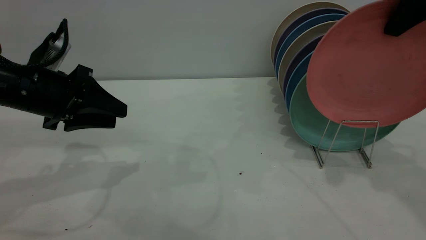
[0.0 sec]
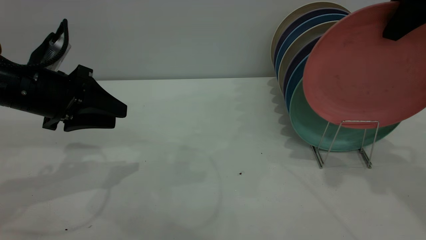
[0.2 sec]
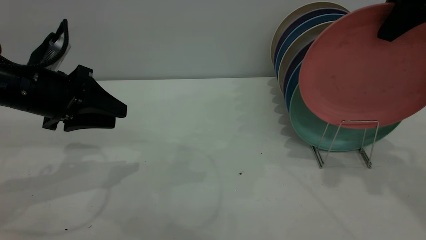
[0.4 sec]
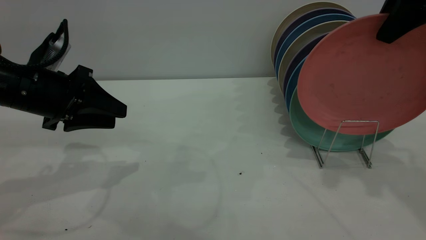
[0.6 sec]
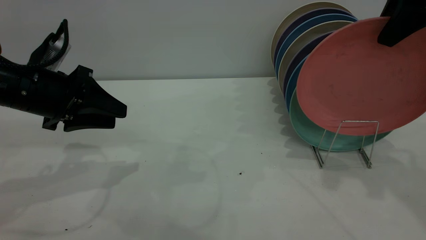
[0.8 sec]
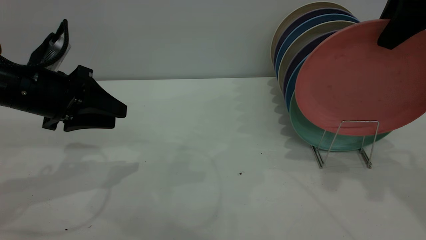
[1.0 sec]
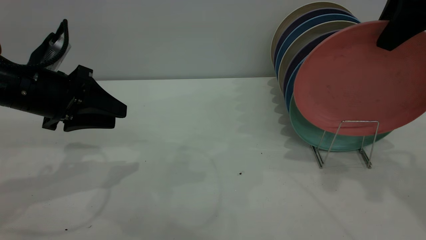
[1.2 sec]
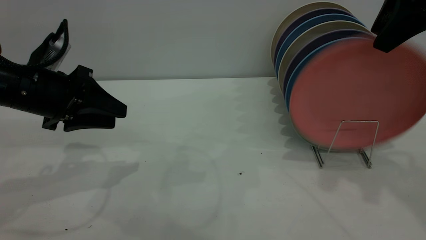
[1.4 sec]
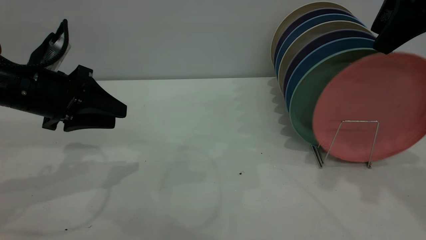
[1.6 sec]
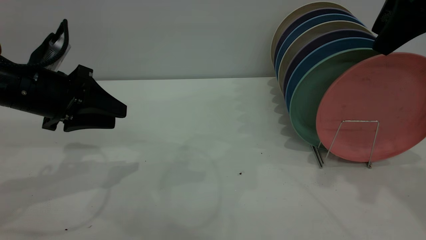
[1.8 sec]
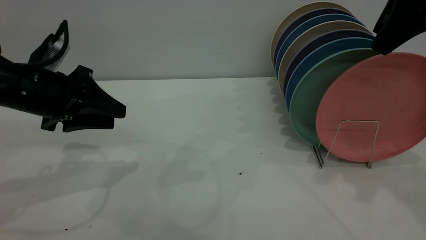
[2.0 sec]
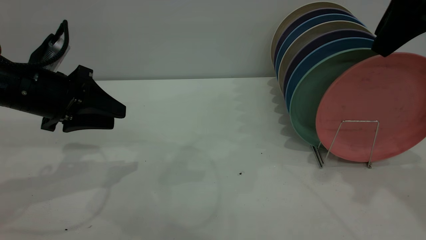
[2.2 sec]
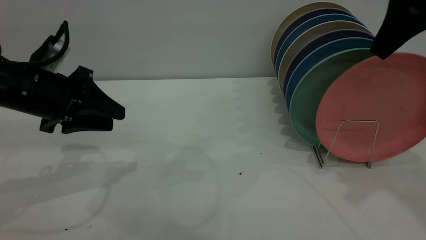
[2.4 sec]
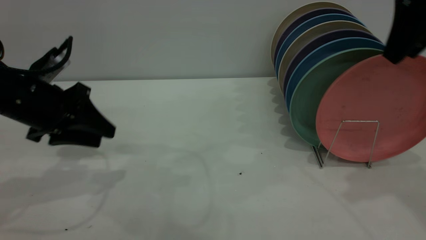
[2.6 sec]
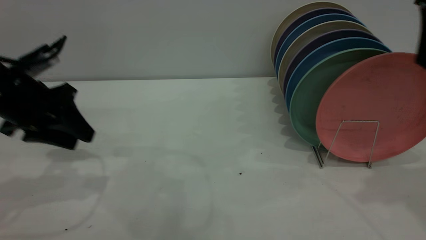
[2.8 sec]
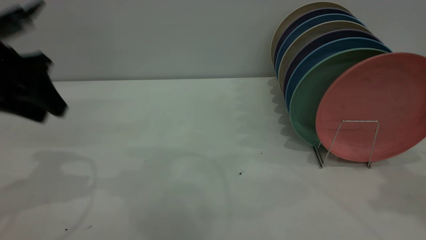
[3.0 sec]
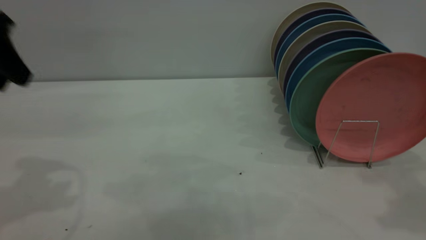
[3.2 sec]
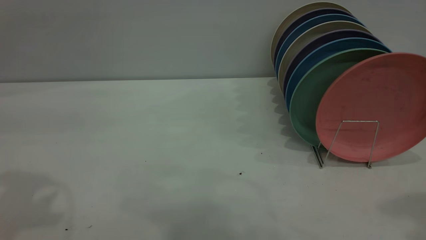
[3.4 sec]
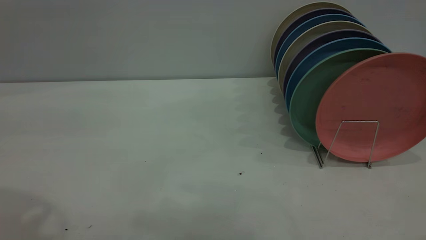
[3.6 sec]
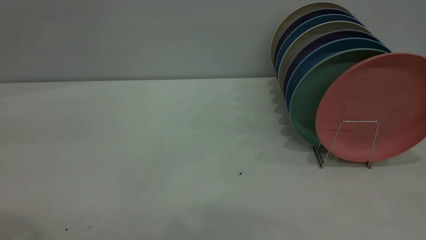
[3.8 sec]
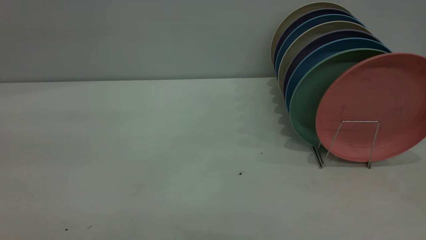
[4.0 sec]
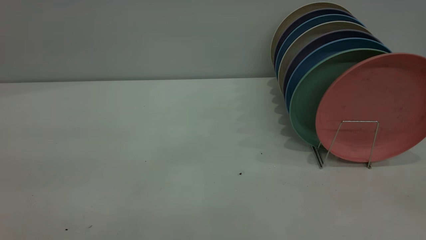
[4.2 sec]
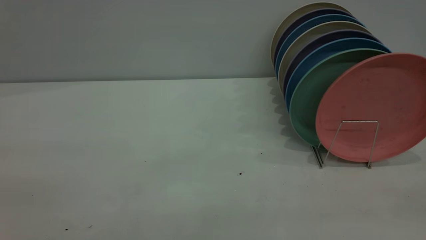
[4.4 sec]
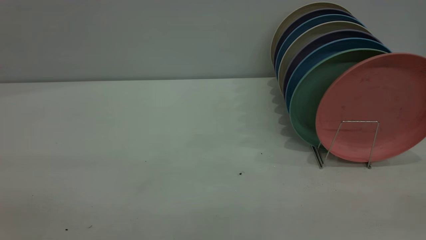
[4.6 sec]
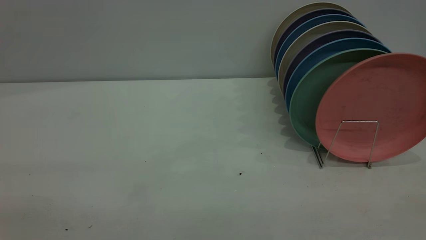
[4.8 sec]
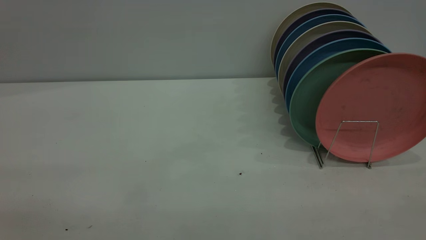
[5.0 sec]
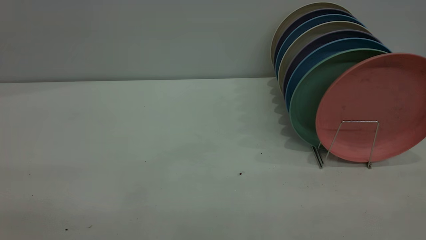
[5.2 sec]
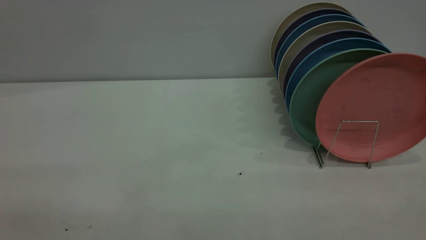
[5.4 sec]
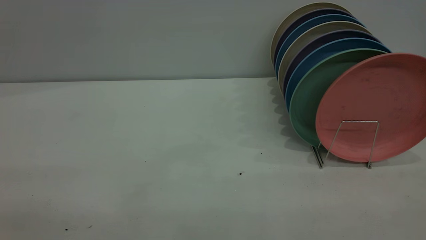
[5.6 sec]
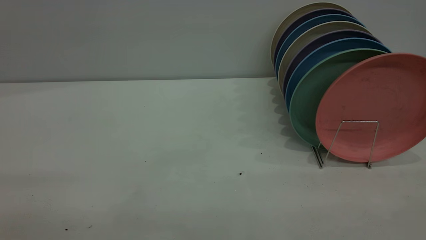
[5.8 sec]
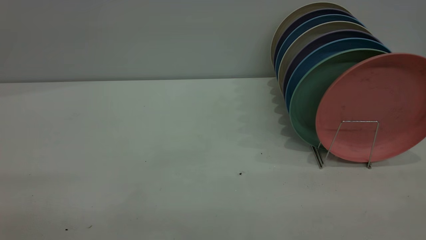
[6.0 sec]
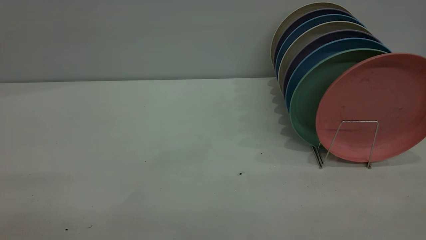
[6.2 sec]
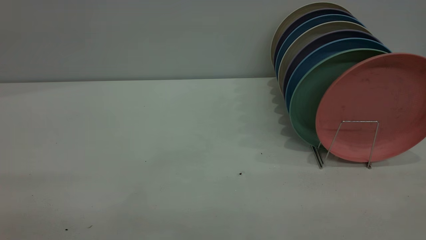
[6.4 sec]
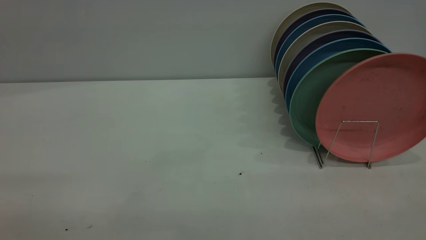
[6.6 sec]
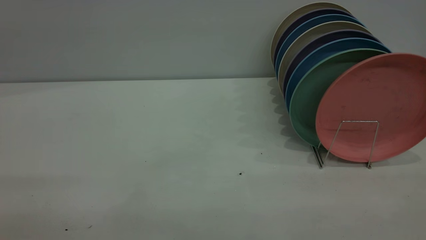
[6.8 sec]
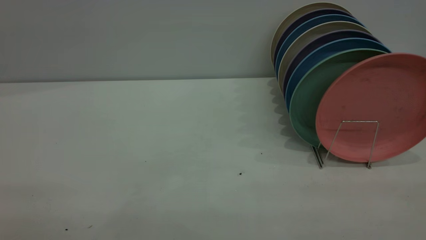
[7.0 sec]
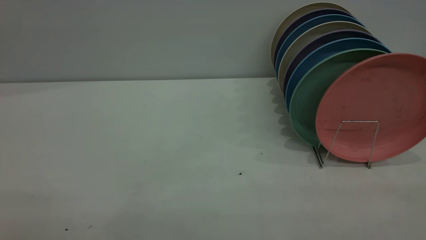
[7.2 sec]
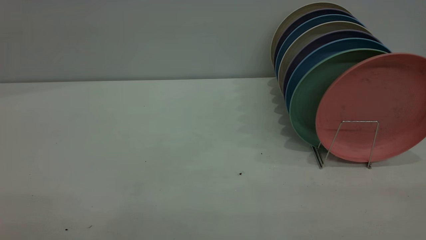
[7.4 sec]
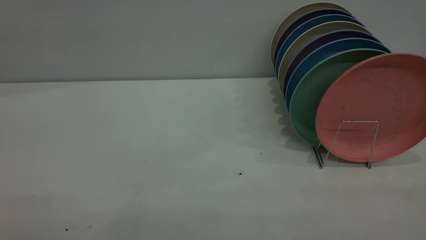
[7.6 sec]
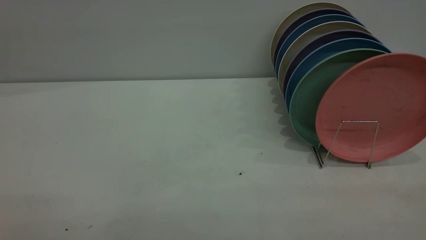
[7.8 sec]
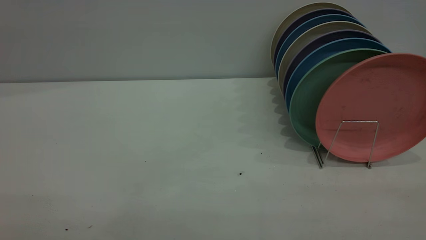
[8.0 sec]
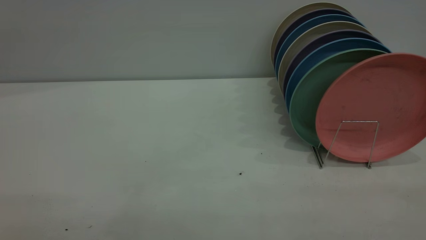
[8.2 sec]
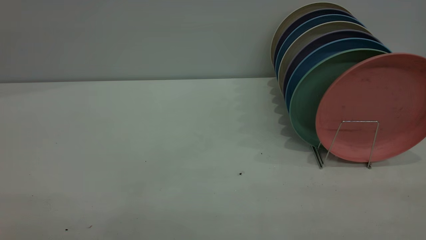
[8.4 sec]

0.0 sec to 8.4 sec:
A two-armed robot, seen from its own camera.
Task of the whole recording: the left gripper grasp the pink plate, the left gripper pass the pink plate to the right gripper, and the right gripper place the pink plate on the plate rack.
Step, 0.0 sec to 2.6 sec: Place the plate on the shelf.
0.0 sec to 1.4 sec: The right gripper opens its fingers.
2.8 sec to 4.2 sec: The left gripper is displaced backward and upward by roughly 30 cm.
7.0 sec to 8.4 sec: Neither gripper changes place.
